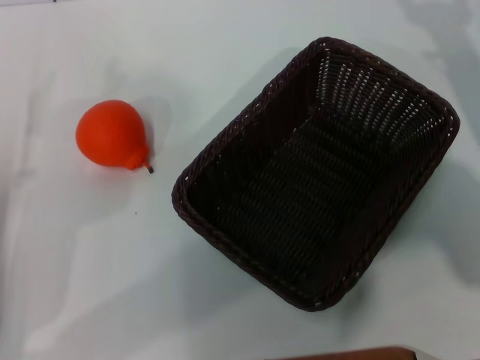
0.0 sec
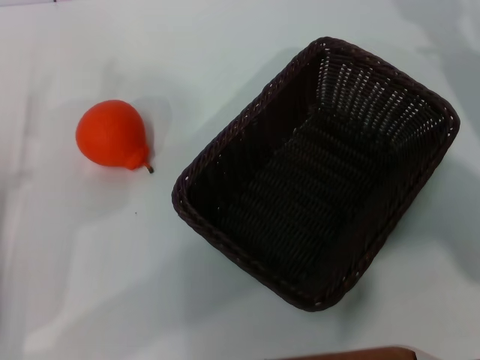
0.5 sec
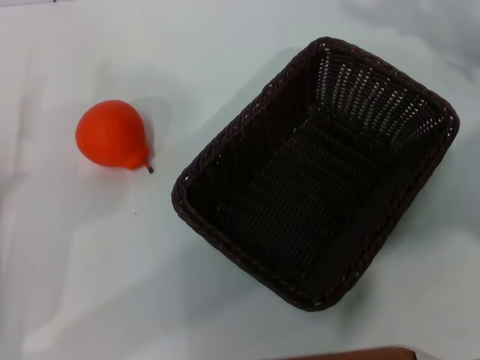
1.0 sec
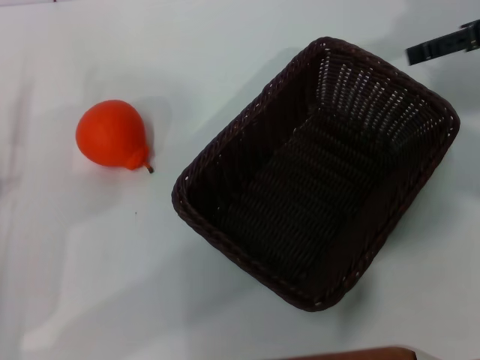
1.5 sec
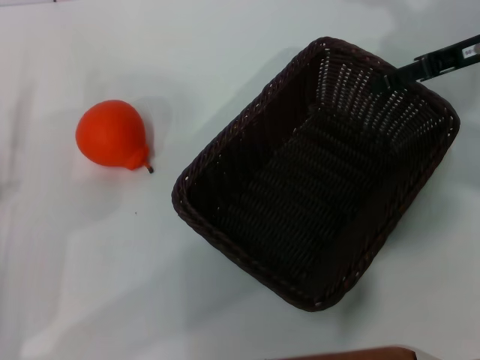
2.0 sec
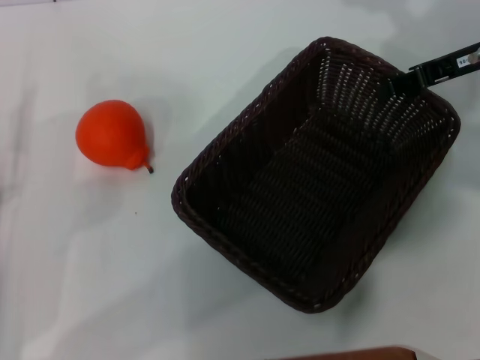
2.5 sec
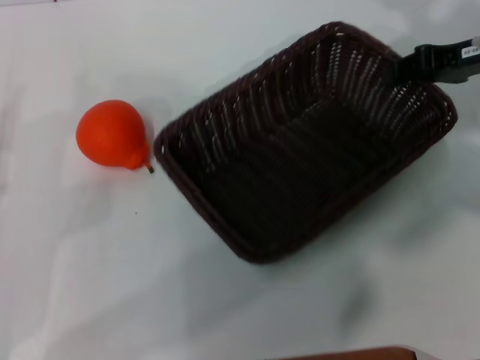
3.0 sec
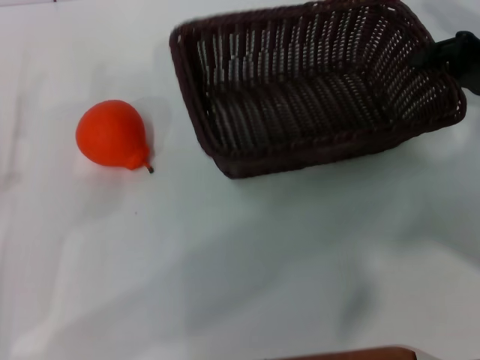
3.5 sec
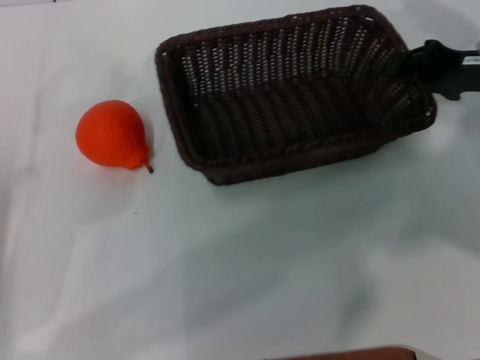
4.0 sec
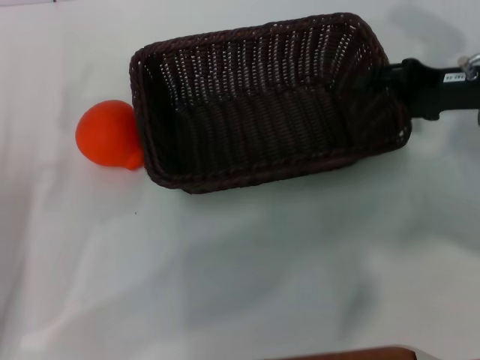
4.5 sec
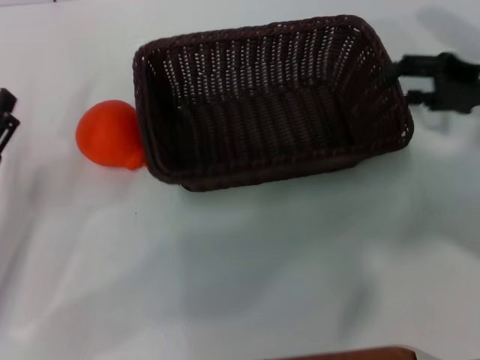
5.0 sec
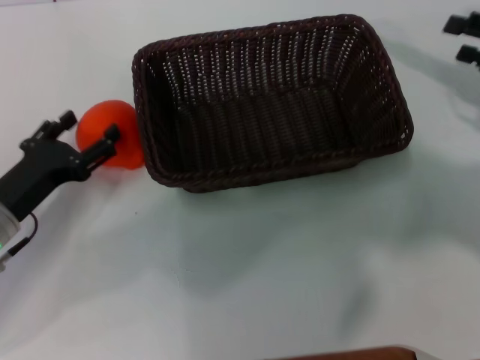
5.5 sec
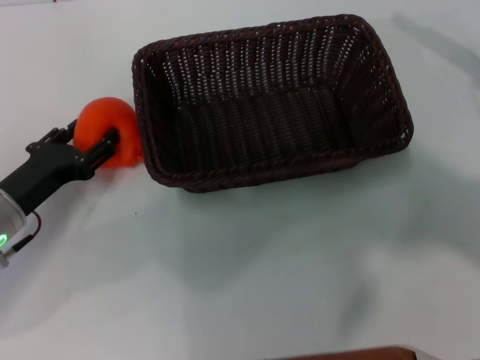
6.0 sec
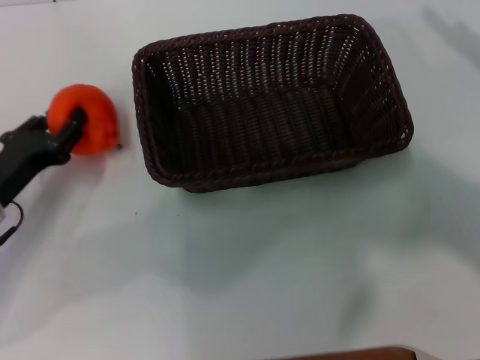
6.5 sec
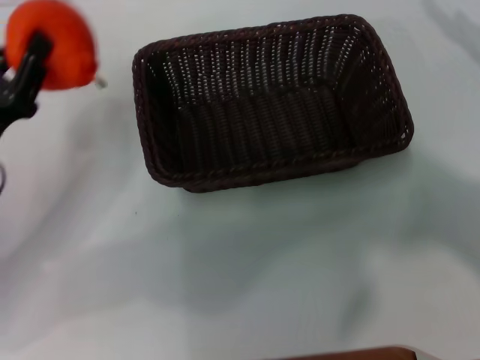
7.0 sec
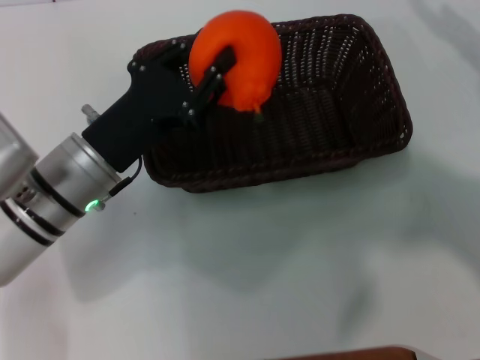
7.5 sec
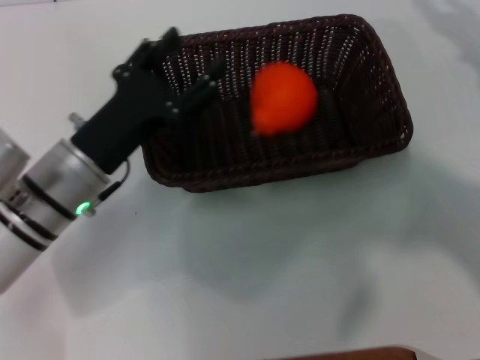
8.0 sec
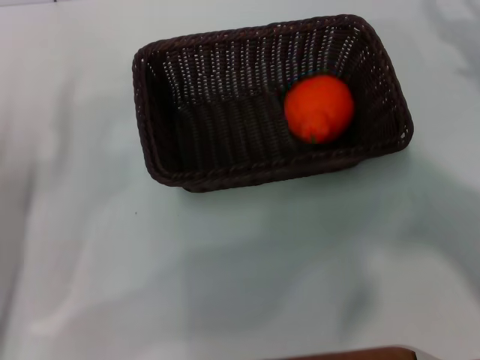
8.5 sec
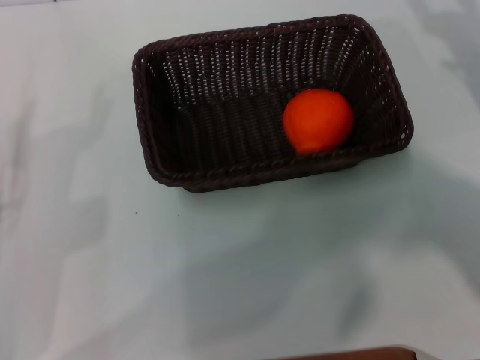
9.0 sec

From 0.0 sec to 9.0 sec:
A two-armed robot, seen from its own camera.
Task of the whole recording: the right gripper pick up the black basket and place it horizontally in the middle of the table, the left gripper pick up the orange and place it into the black basket.
Step, from 0.0 sec to 3.0 sec: Pick up the dark basket with the right gripper.
Step, from 3.5 sec to 5.0 sec: Place the dark basket in the center of view with the right gripper.
Step, from 5.5 sec to 6.5 sec: Pick up the orange with the left gripper.
Step, from 7.0 sec to 8.0 sec: Place the orange into the dark basket with the left gripper.
From 0.0 sec to 2.0 sec: The right gripper travels forward and upward by about 10 cm.
From 2.0 sec to 4.5 sec: The right gripper moves approximately 5 cm, and closes.
From 4.5 sec to 7.0 sec: The right gripper is displaced to the right and backward by about 15 cm, and opens, while the left gripper goes some 5 cm forward, and closes up.
From 7.0 sec to 9.0 sec: The left gripper shifts about 10 cm backward, moves about 10 cm to the right and comes back, and opens its fingers. The right gripper moves roughly 5 cm.
